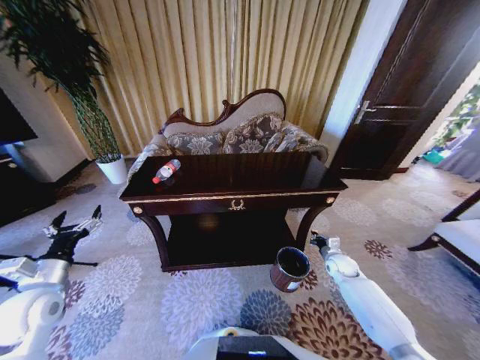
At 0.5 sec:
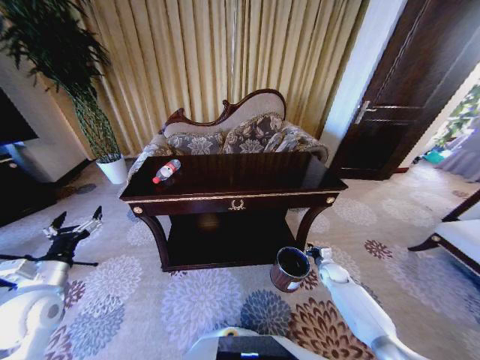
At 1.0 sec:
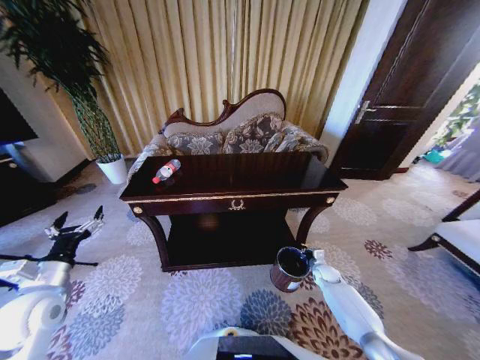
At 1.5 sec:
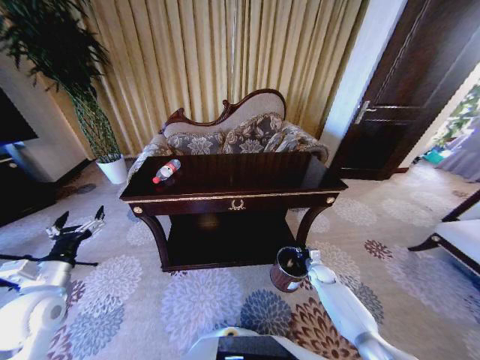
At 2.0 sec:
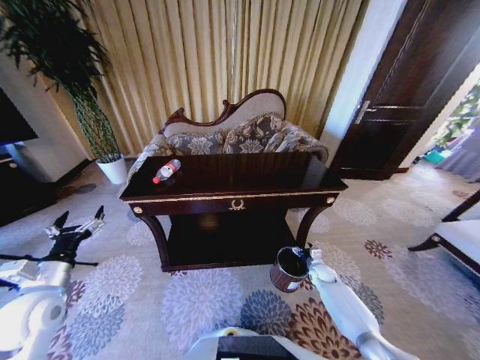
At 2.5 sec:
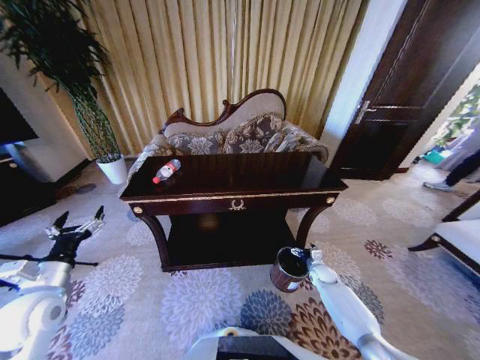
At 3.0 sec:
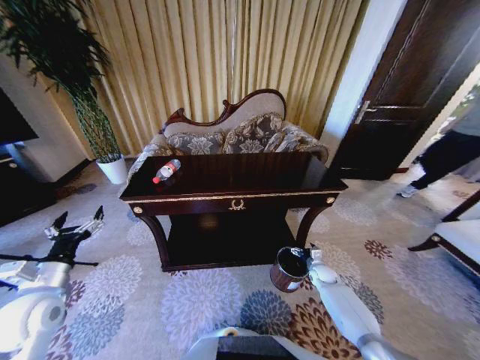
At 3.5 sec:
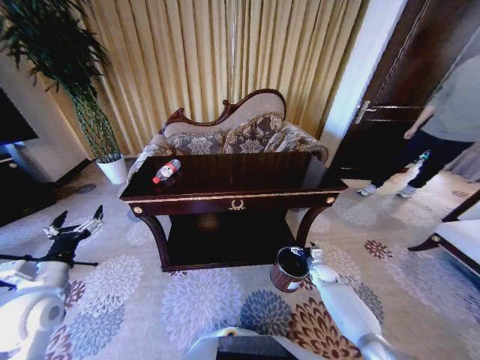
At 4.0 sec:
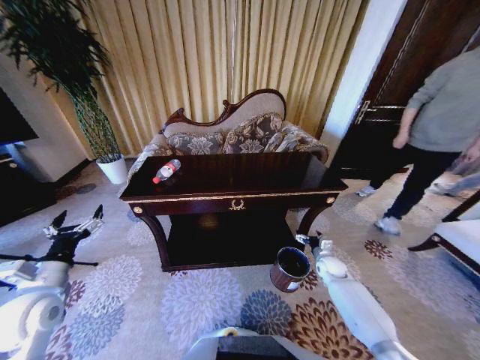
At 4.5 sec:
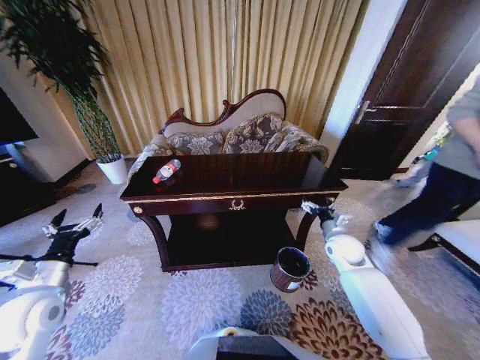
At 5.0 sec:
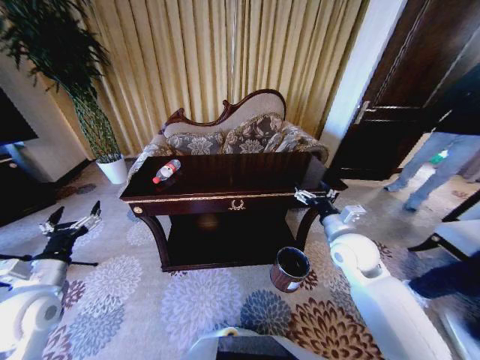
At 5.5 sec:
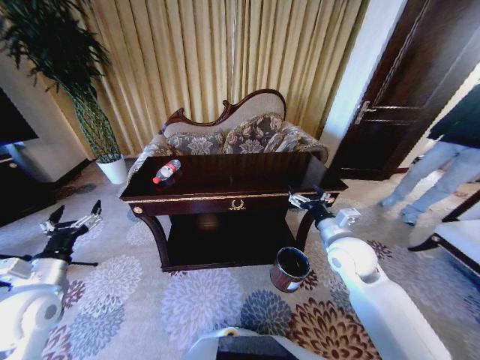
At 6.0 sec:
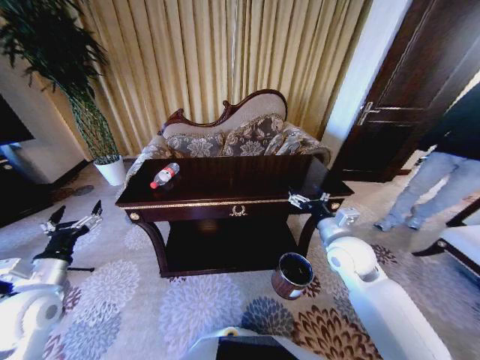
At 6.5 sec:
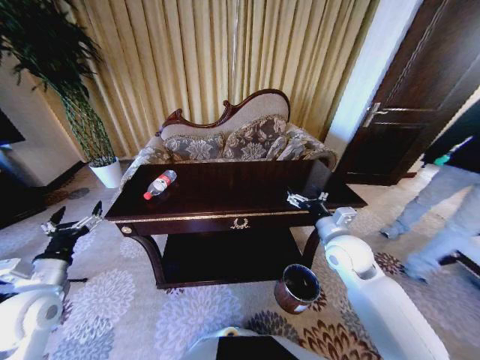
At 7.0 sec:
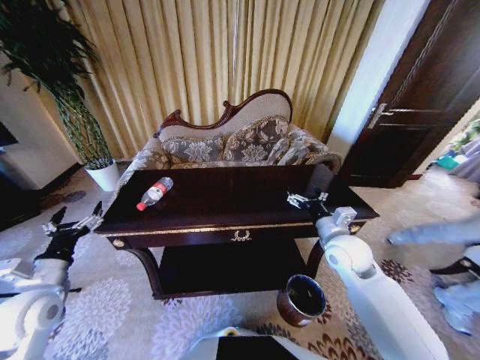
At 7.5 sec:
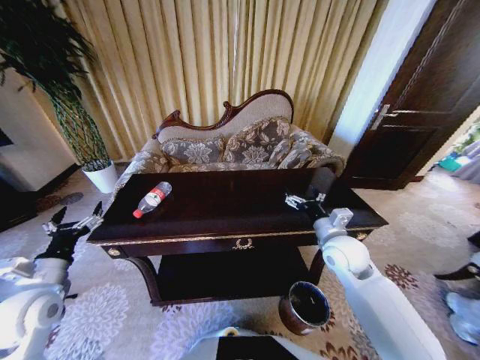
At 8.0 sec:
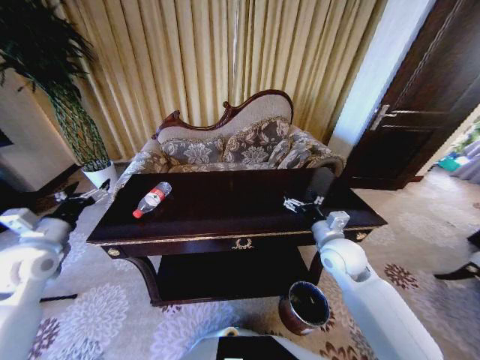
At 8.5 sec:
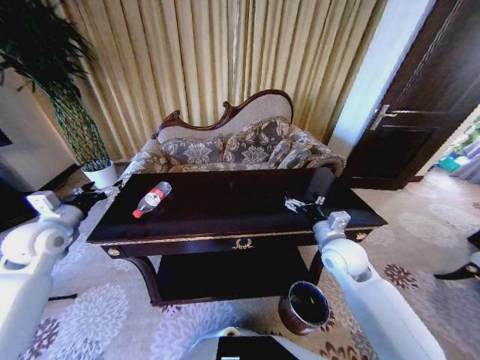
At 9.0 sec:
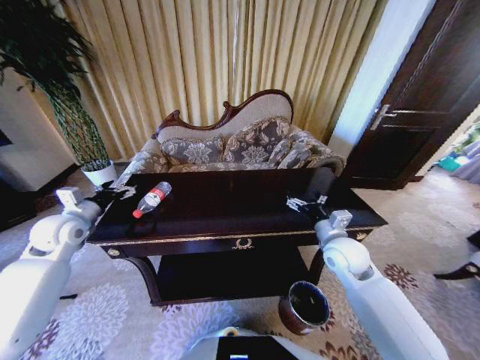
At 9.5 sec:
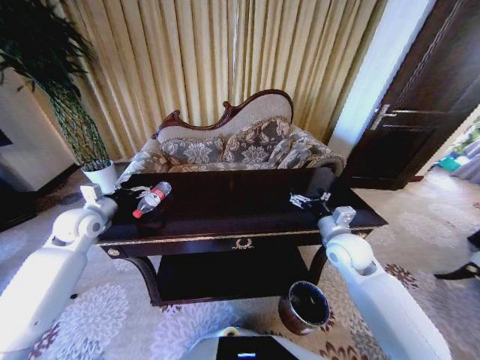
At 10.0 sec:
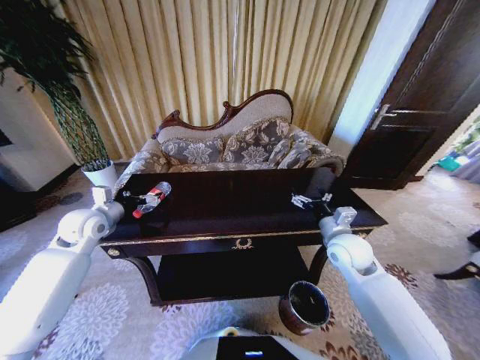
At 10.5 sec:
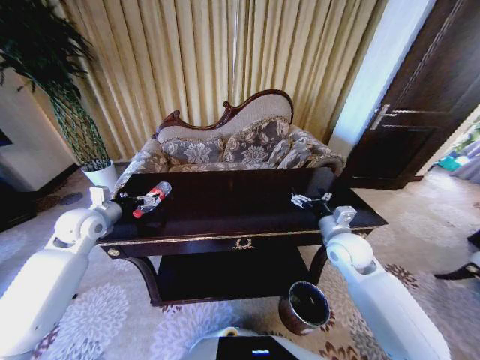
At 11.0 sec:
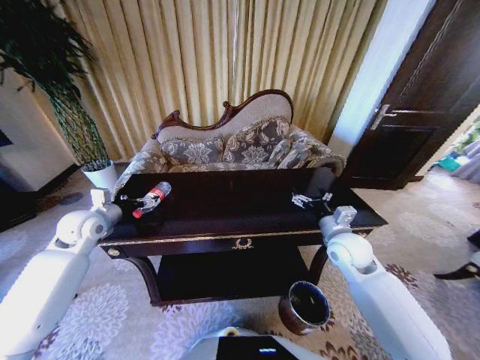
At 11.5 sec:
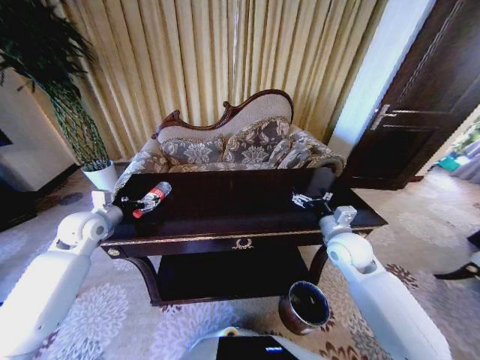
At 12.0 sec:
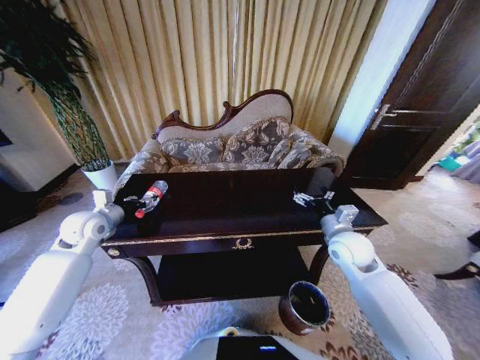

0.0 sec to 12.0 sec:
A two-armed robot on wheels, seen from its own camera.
Task of the whole recording: Move to the front of the table and place the trash on the table into the trash bin.
0.0 sec to 2.0 sec: The right gripper heads downward, covering about 10 cm, and opens.
2.0 sec to 4.0 sec: The right gripper is displaced upward by roughly 5 cm.
4.0 sec to 6.0 sec: The right gripper shifts about 30 cm upward and to the left.
6.0 sec to 8.0 sec: The left gripper travels forward by roughly 5 cm.
8.0 sec to 10.0 sec: The left gripper heads forward, covering roughly 10 cm.
10.0 sec to 12.0 sec: The left gripper closes.

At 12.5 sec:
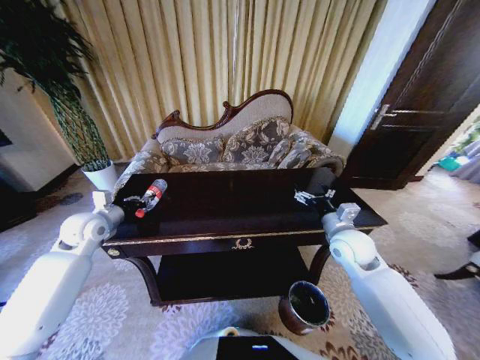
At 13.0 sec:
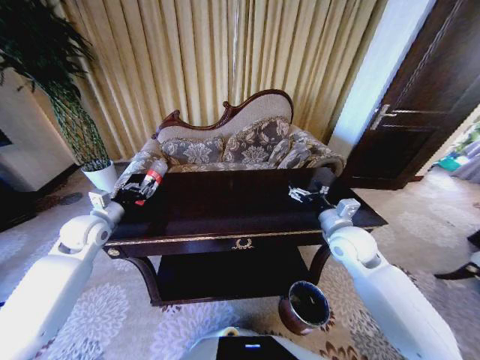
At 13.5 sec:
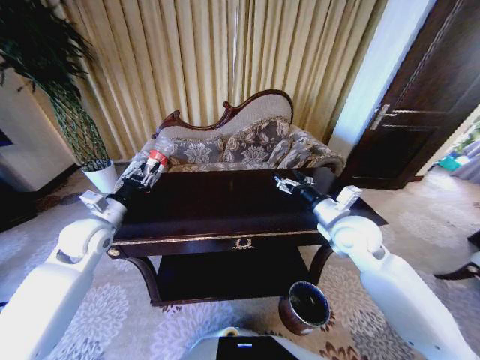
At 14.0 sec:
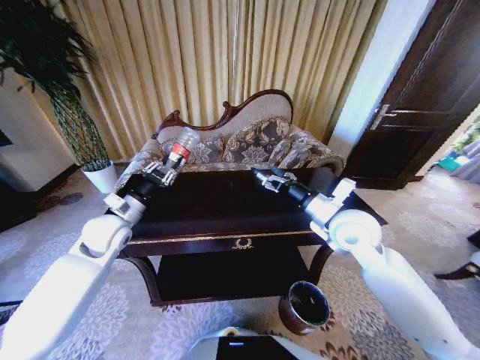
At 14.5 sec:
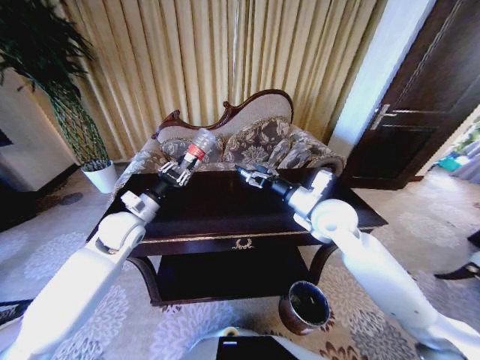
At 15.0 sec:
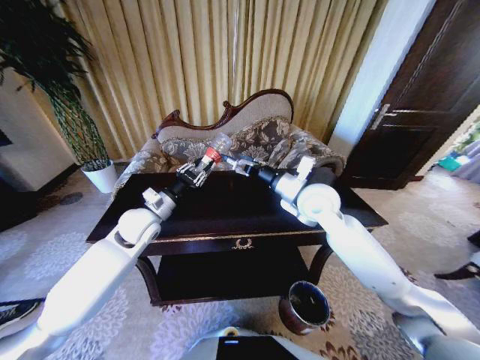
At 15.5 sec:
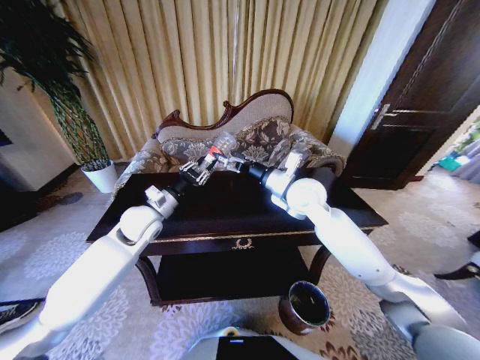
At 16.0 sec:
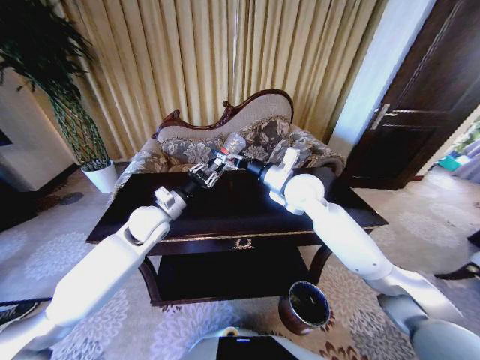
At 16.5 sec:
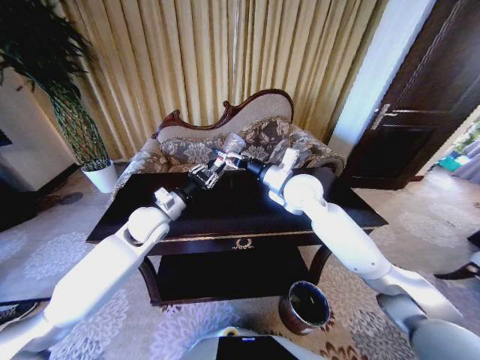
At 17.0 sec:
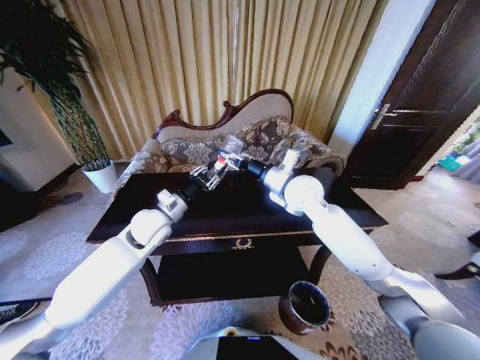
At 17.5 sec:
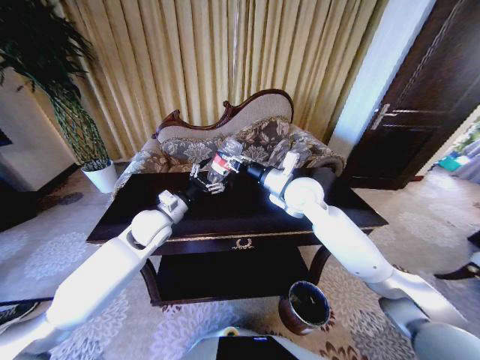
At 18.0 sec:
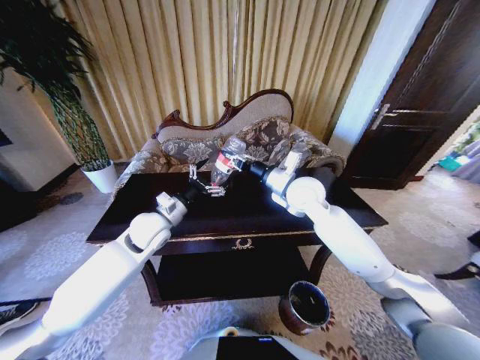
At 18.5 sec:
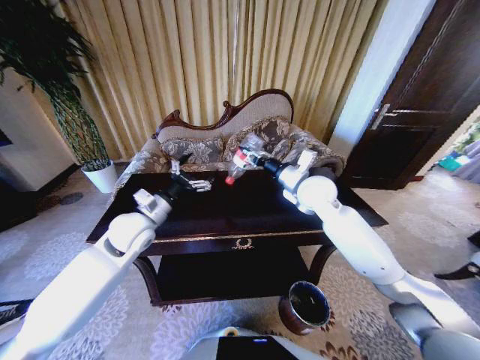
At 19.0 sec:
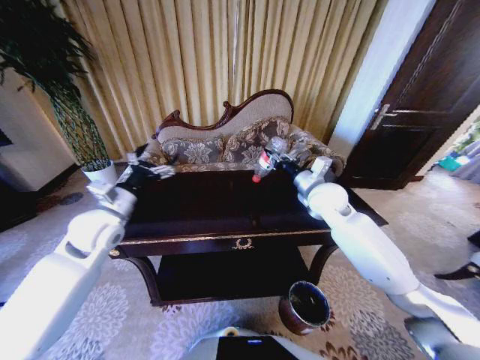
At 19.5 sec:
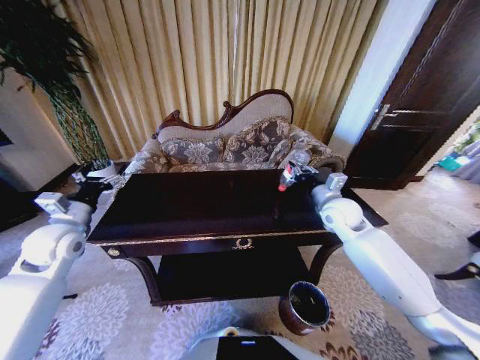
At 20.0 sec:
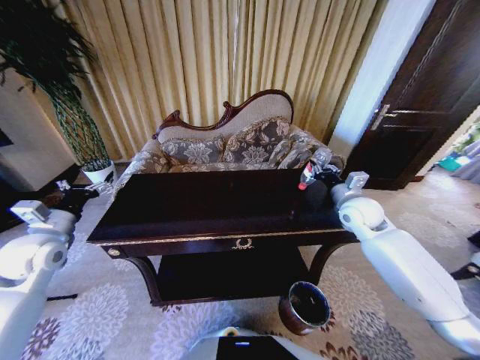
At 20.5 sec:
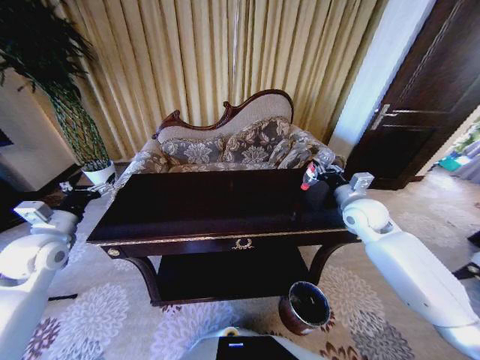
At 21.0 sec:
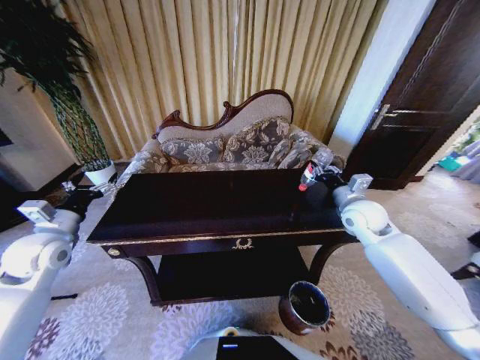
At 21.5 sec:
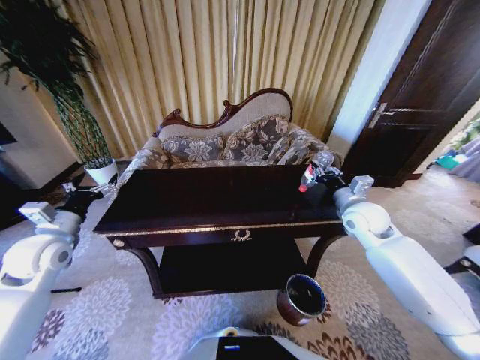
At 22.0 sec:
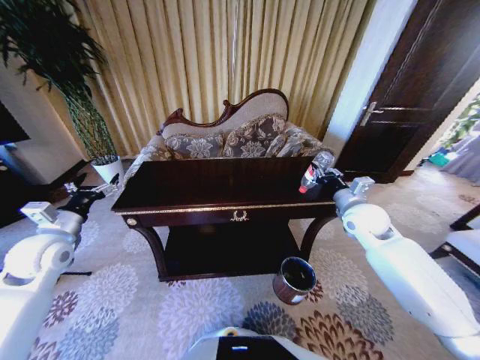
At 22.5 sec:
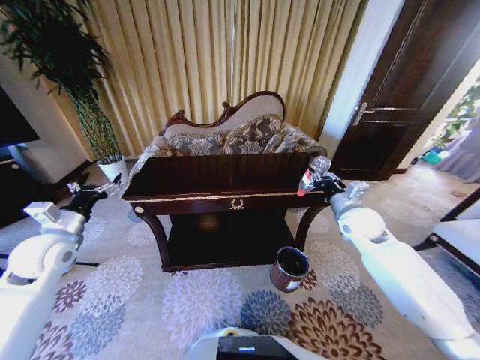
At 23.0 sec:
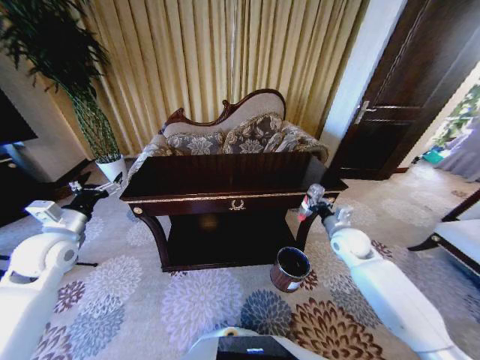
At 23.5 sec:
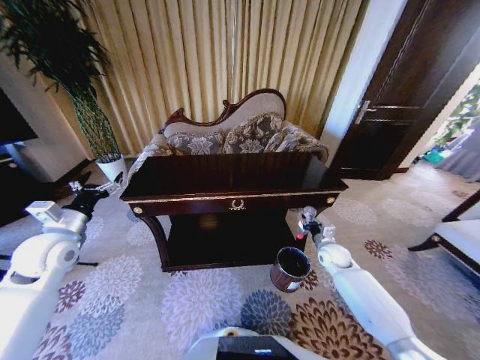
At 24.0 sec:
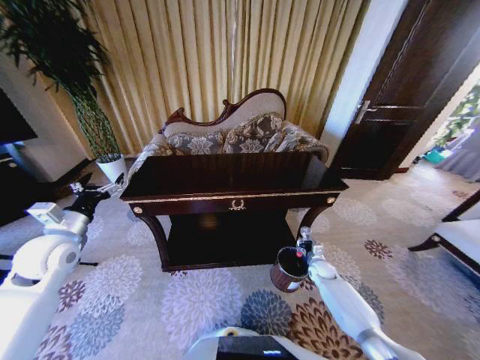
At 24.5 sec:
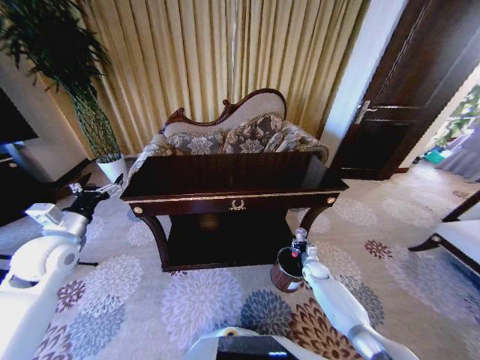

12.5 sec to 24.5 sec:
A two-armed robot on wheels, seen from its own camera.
Task of the whole recording: Move to the front of the table and place the trash on the table into the trash bin.
12.5 sec to 14.5 sec: The right gripper goes roughly 10 cm upward and to the left. Meanwhile the left gripper goes about 10 cm to the right.
14.5 sec to 16.5 sec: The left gripper shifts about 5 cm to the right. The right gripper shifts roughly 10 cm forward and to the left.
16.5 sec to 18.5 sec: The right gripper heads to the right, covering roughly 5 cm, and closes up. The left gripper opens.
18.5 sec to 20.5 sec: The left gripper heads to the left, covering roughly 20 cm, while the right gripper shifts approximately 15 cm to the right and downward.
22.5 sec to 24.5 sec: The right gripper travels downward by some 35 cm.

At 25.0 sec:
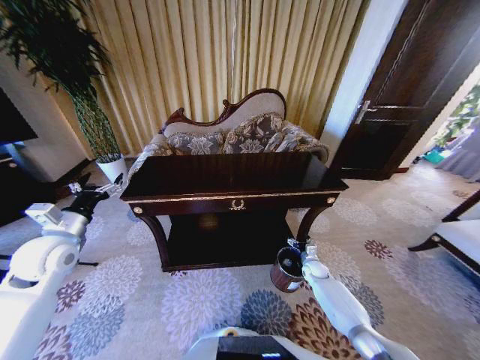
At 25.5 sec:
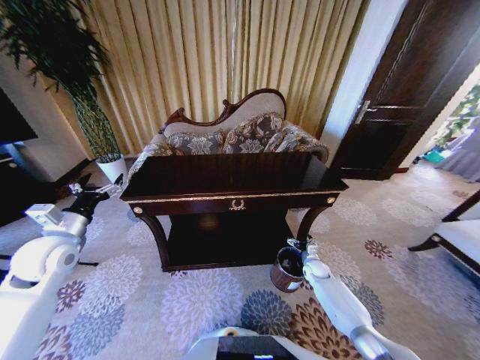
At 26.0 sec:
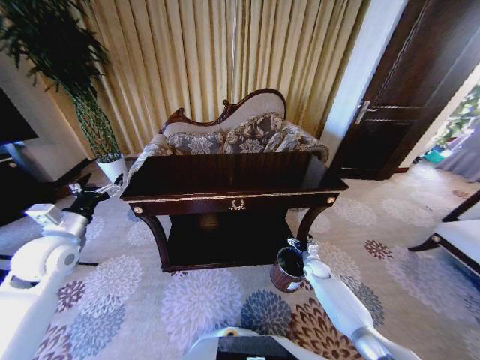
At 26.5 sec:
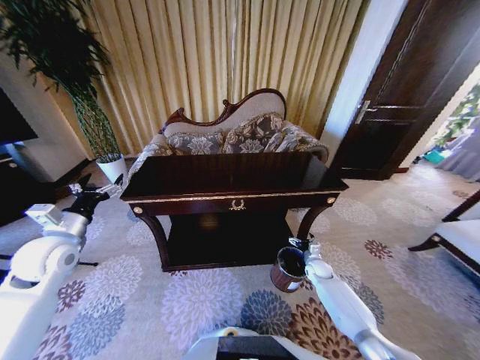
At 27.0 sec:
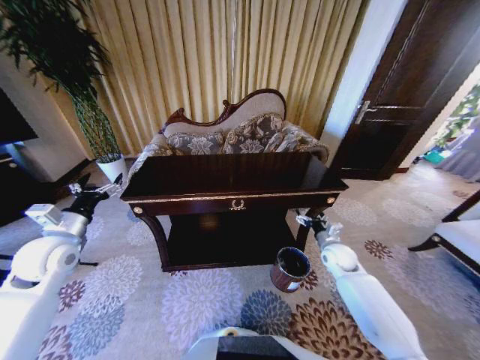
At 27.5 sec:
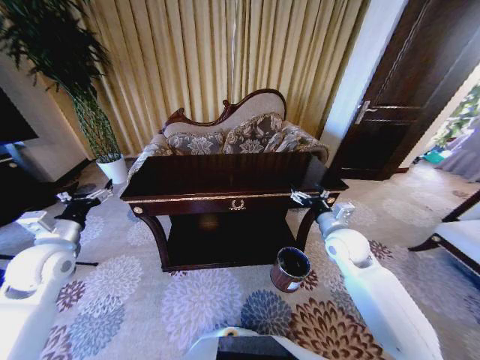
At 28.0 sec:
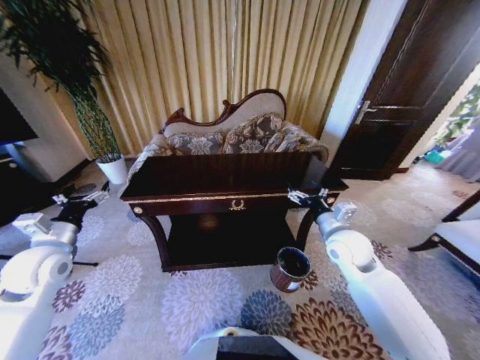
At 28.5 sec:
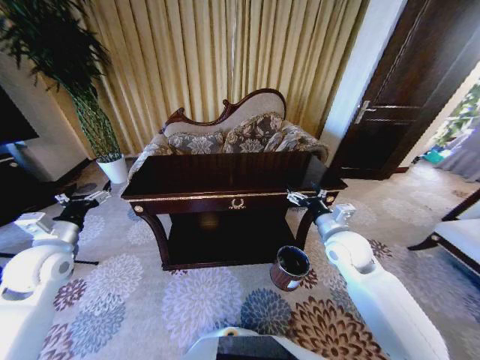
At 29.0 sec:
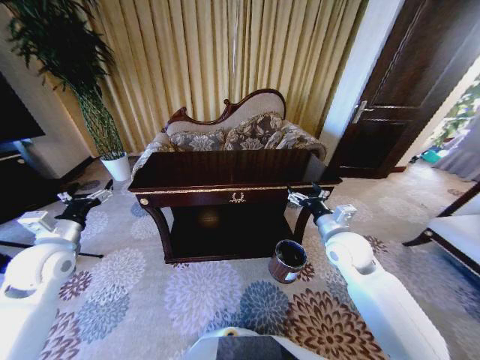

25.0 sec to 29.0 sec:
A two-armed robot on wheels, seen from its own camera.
Task of the whole recording: Move to the front of the table and place the trash on the table into the trash bin.
25.0 sec to 27.0 sec: The right gripper goes roughly 15 cm upward.
27.0 sec to 29.0 sec: The right gripper travels upward and to the left by roughly 15 cm.
